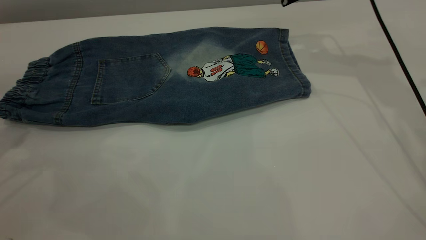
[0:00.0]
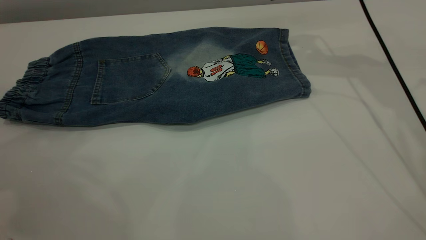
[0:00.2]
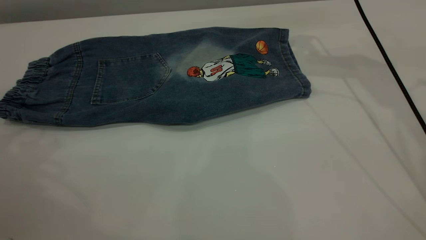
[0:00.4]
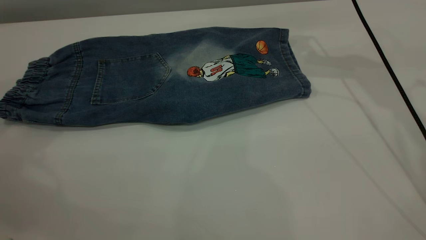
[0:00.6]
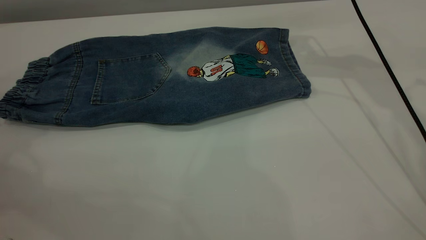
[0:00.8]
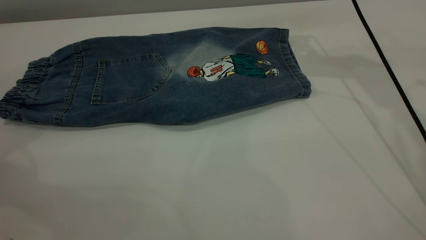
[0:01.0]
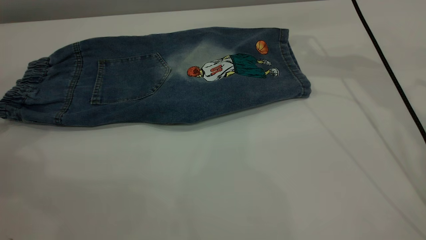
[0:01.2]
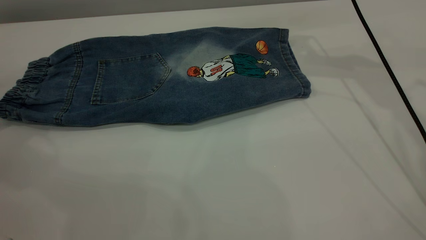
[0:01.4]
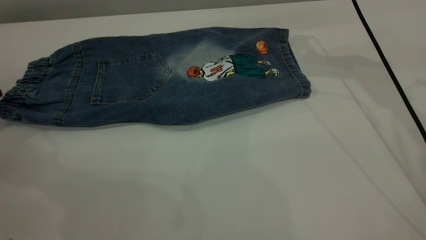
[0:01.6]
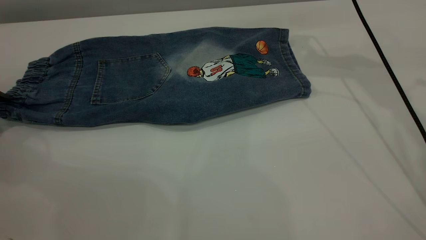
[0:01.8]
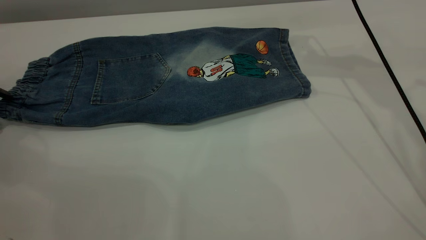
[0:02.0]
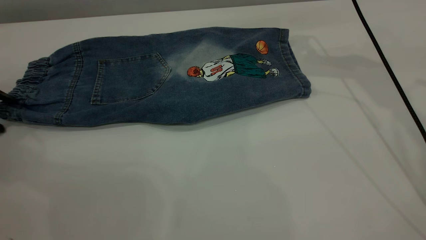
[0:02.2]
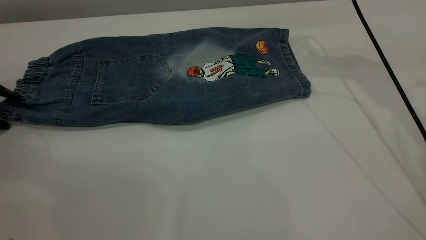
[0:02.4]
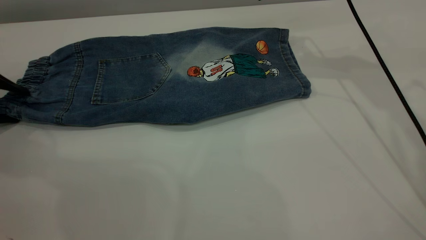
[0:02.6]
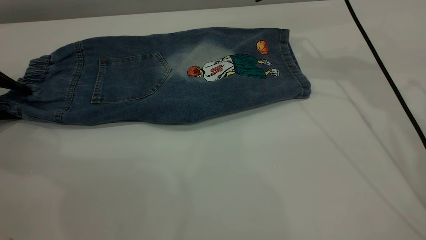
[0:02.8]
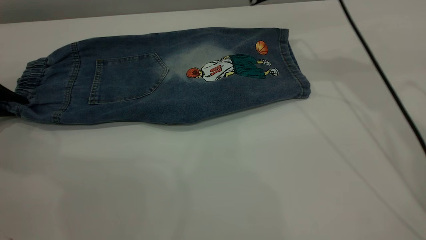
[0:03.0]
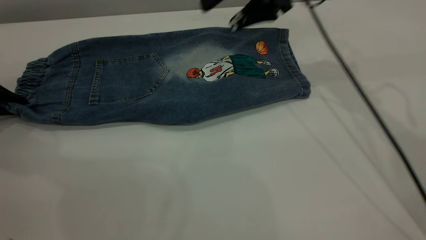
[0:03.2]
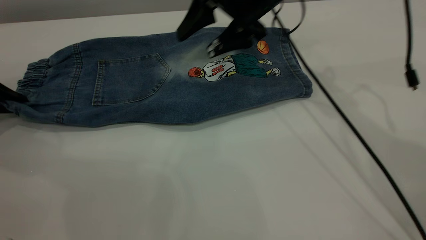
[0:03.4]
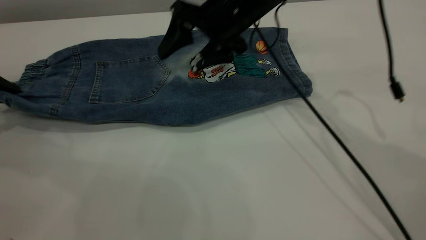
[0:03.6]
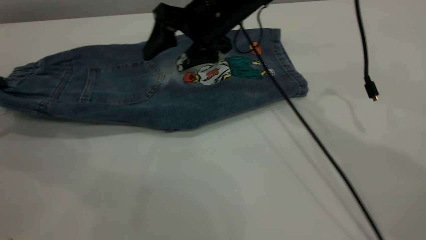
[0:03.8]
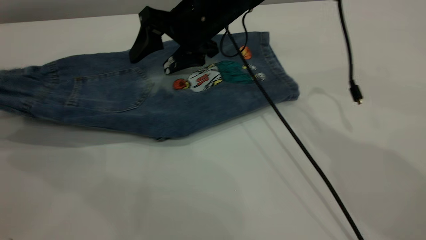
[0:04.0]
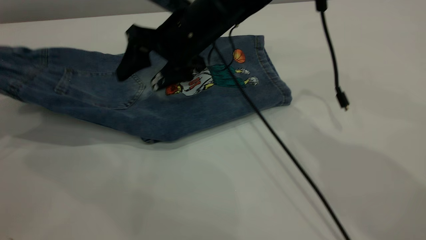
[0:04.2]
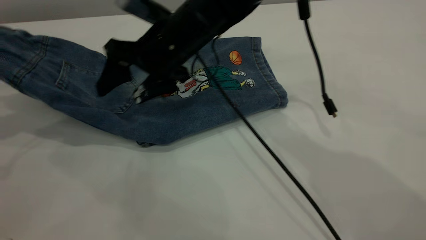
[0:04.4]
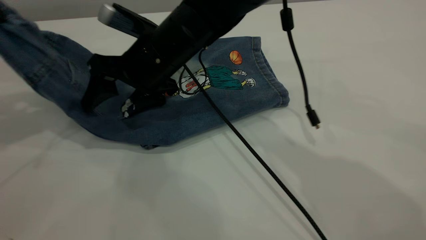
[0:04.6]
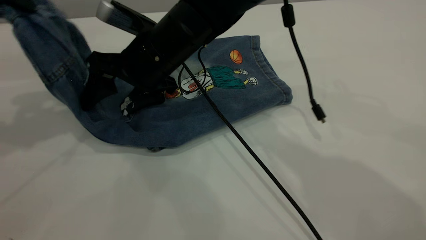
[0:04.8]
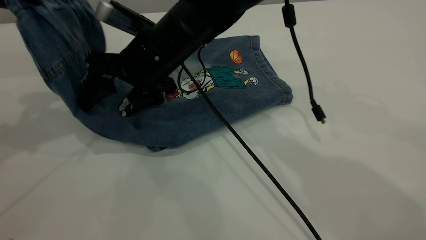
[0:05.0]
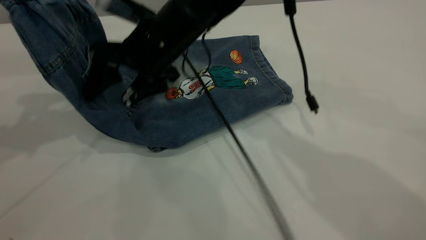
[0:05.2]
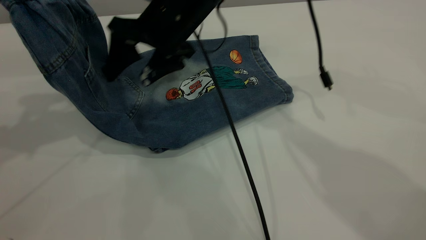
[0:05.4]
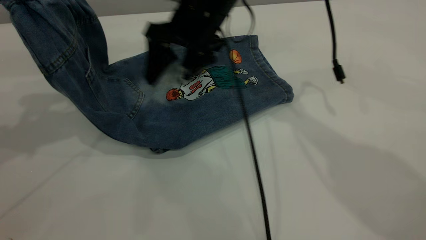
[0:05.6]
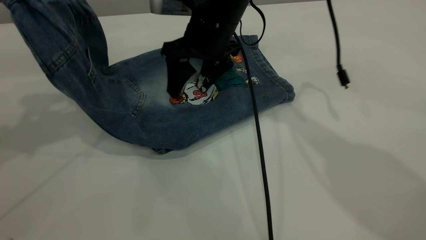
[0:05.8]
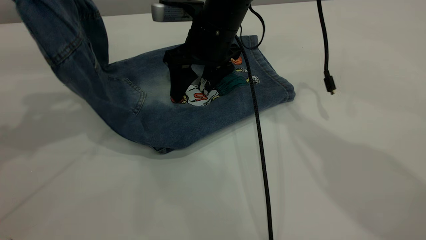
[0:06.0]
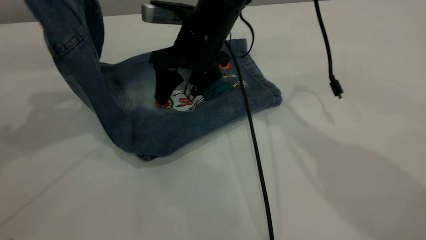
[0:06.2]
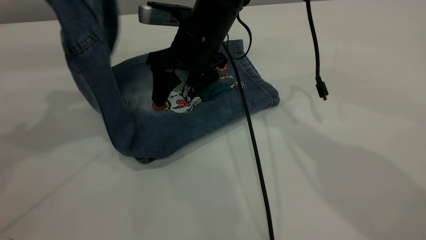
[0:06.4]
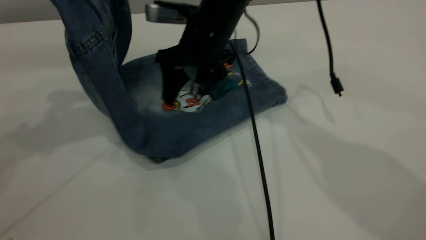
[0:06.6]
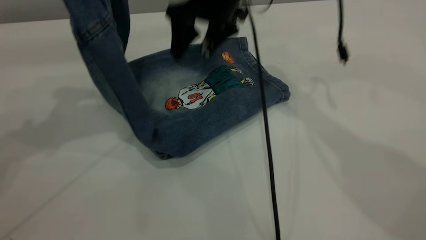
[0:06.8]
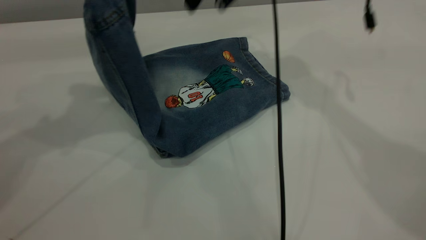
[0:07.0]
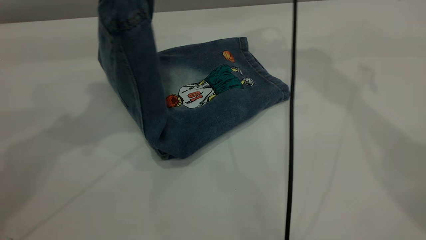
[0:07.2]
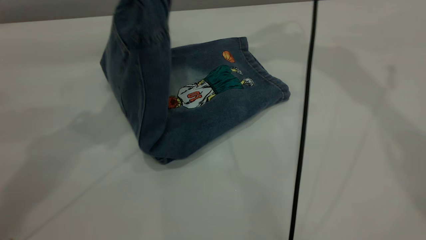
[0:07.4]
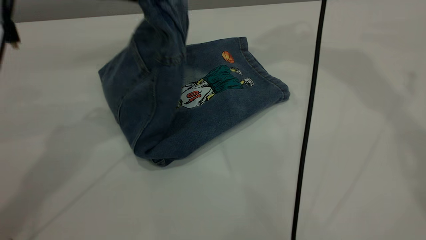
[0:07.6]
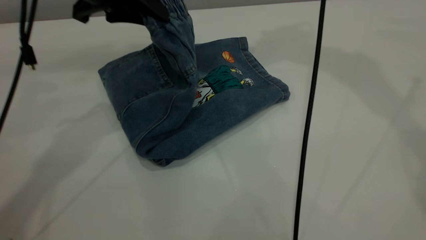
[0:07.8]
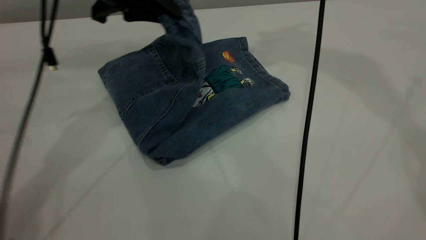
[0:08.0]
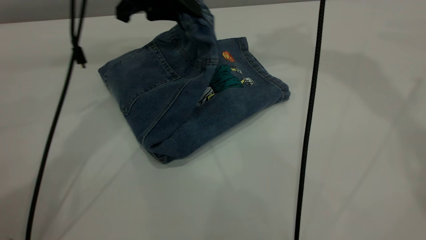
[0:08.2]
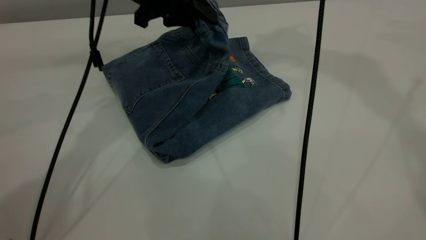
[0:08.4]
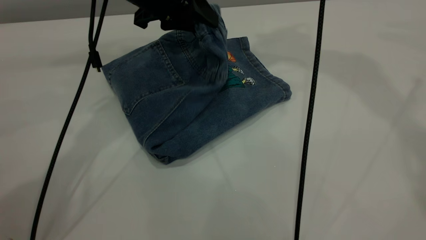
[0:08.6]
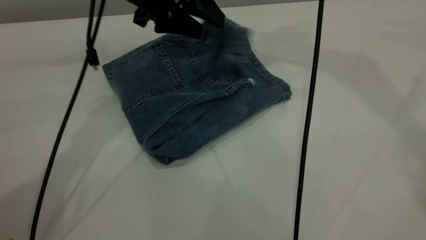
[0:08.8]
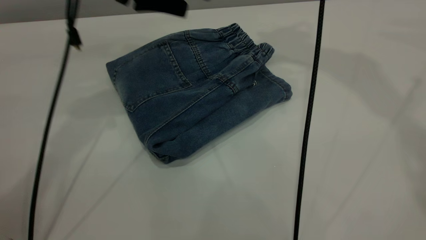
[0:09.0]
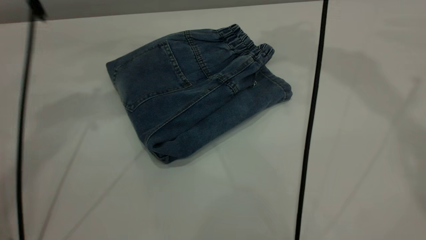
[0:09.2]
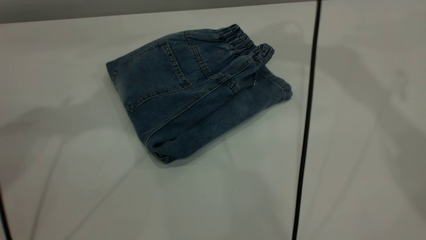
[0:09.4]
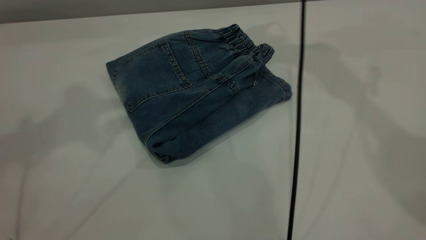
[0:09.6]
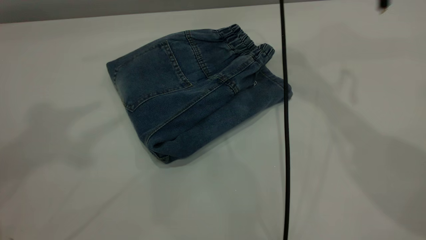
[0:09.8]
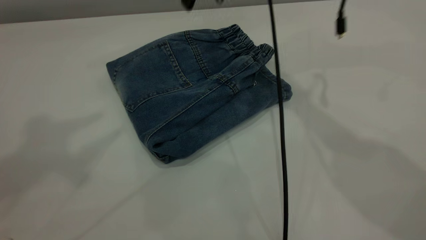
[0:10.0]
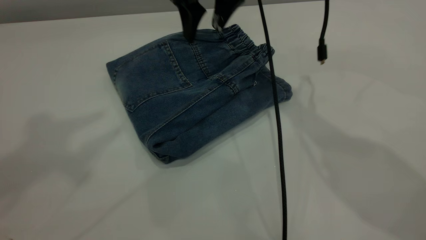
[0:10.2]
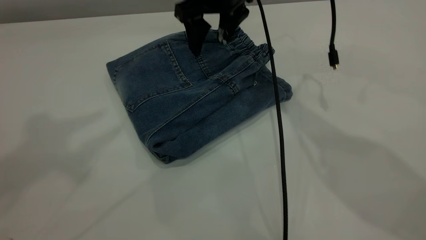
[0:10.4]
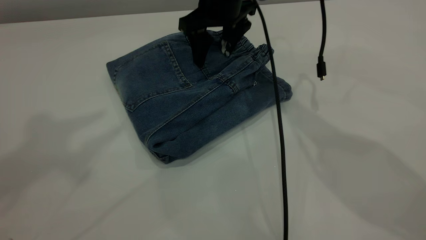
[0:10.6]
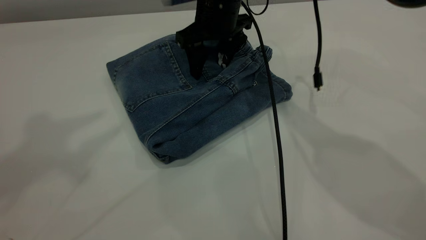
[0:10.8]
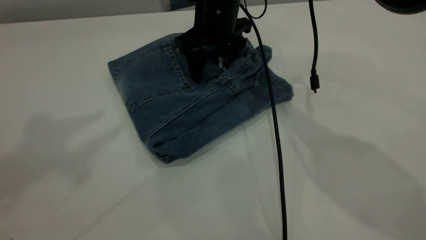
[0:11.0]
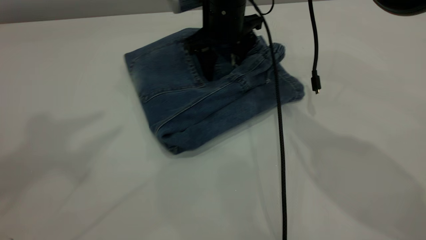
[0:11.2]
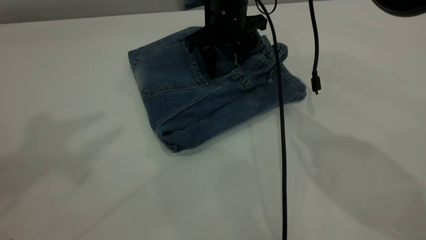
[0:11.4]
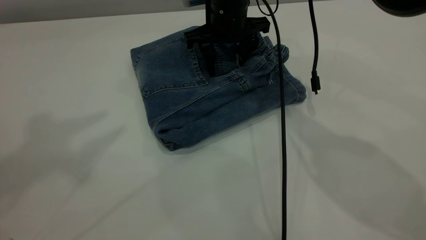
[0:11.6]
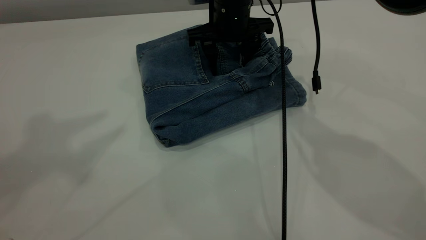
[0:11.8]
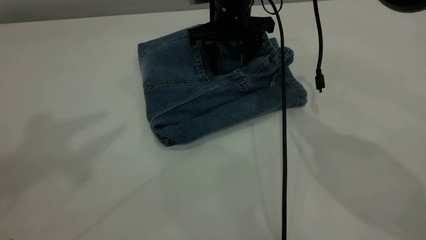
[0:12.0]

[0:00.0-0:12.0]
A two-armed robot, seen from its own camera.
Step, 0:00.6 to 0:09.4: Fold the pants from left to right.
0:01.6 to 0:03.0: The left gripper closes its fingers.
0:03.0 to 0:04.4: The left gripper heads upward, covering approximately 15 cm; the right gripper goes some 20 cm to the left and downward.
0:04.4 to 0:06.0: The grippers both shift to the right by approximately 5 cm.
0:06.0 to 0:07.6: The right gripper shifts roughly 35 cm upward and to the right; the left gripper is displaced to the right by approximately 15 cm.
0:07.6 to 0:09.0: The left gripper opens its fingers.
0:09.0 to 0:10.4: The right gripper travels downward and to the left by some 30 cm. Meanwhile the left gripper shifts some 30 cm upward, backward and to the left.

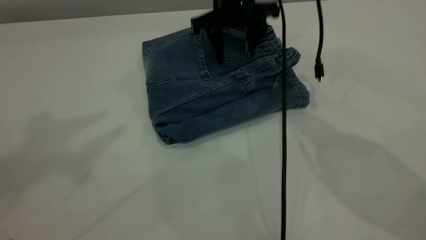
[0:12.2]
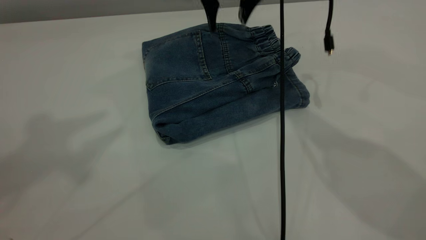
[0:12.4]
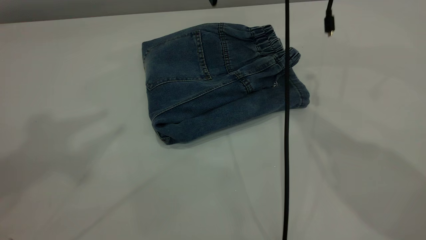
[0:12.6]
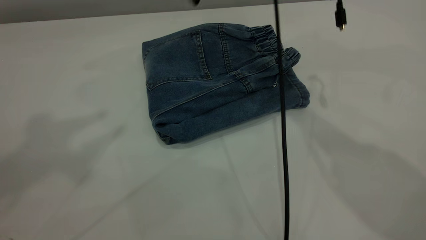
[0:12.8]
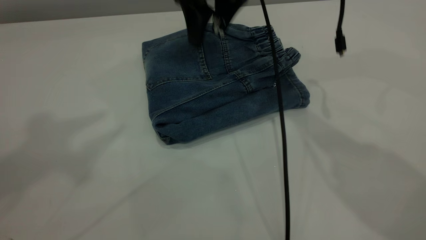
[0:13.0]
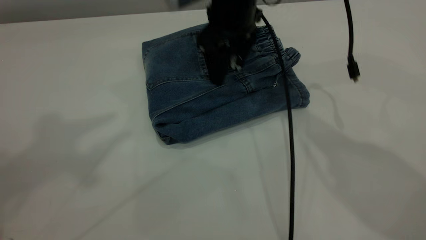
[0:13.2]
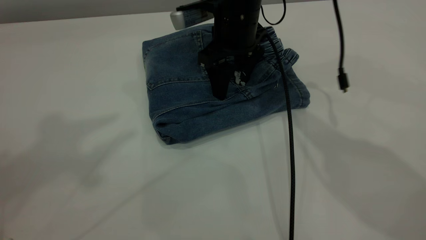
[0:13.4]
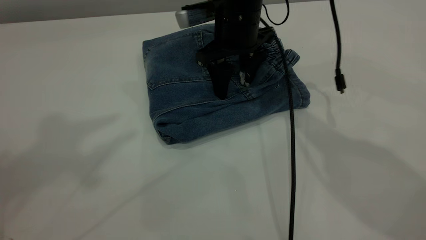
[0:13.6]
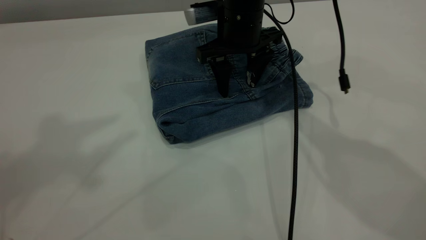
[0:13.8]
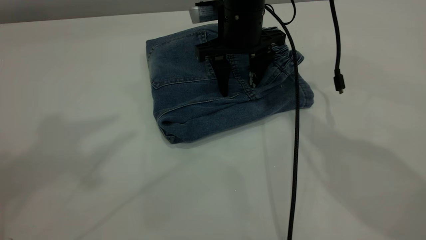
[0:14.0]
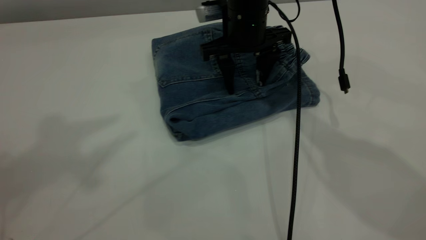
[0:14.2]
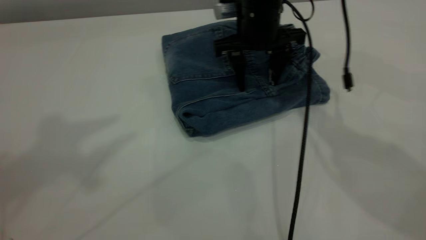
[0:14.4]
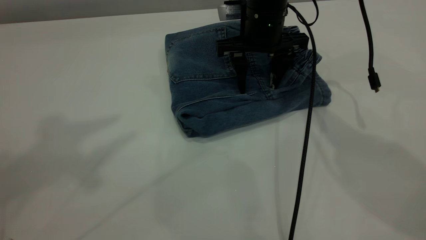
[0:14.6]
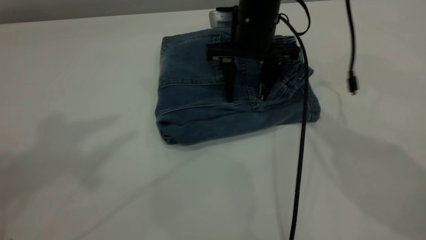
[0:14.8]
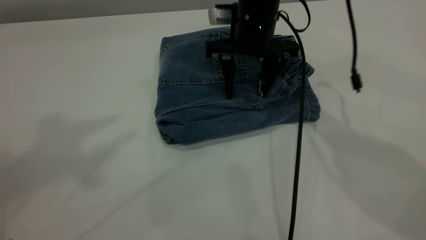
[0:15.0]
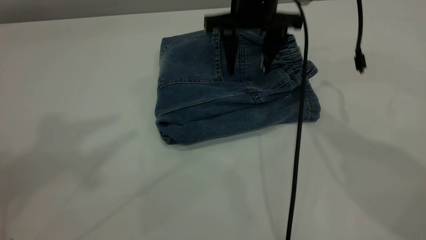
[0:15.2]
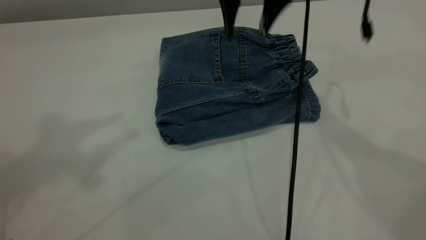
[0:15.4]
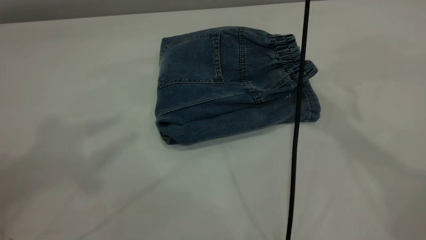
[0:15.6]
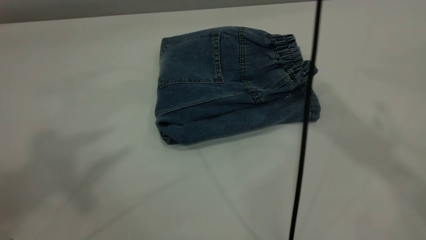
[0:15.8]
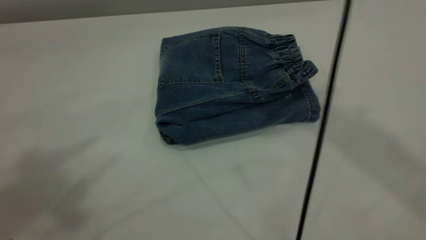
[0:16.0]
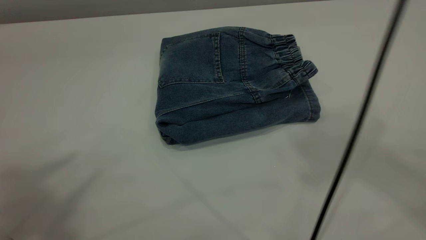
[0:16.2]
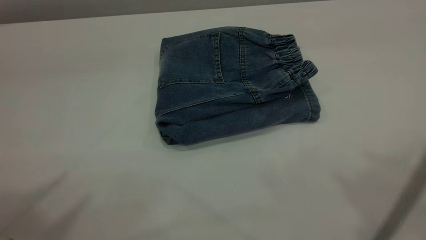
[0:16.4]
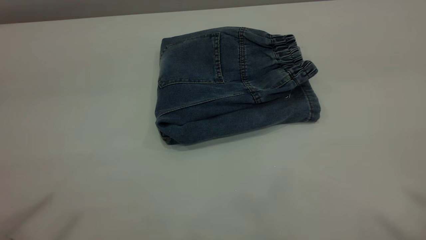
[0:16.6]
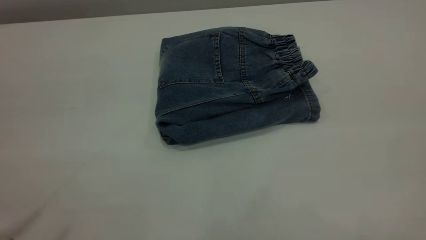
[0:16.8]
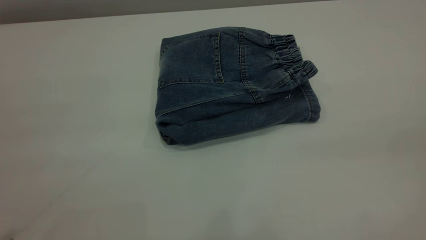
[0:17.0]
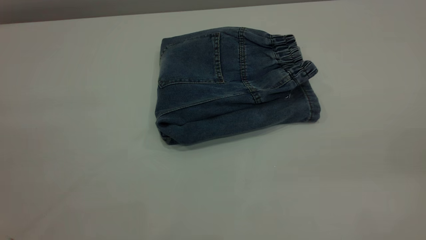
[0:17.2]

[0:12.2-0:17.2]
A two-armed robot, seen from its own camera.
0:12.2 to 0:13.8: The right gripper moves about 10 cm upward and comes back.
0:13.8 to 0:15.6: The right gripper is displaced upward by approximately 20 cm.
0:15.6 to 0:17.2: The right gripper is displaced backward and to the right by some 50 cm.
